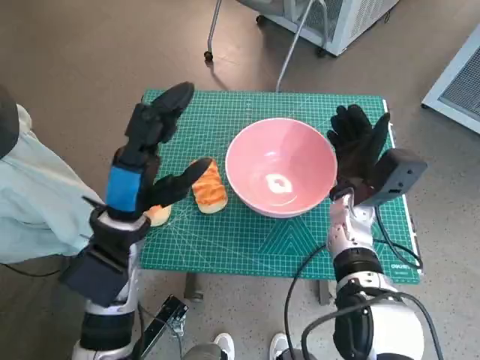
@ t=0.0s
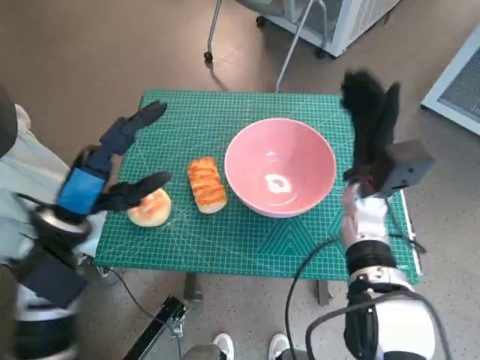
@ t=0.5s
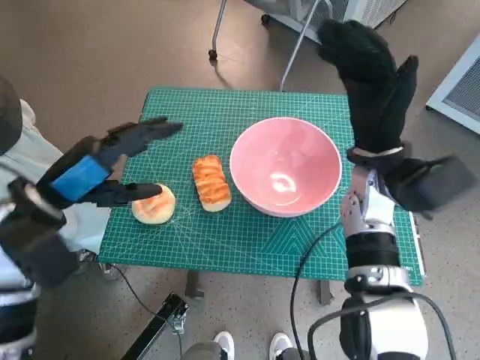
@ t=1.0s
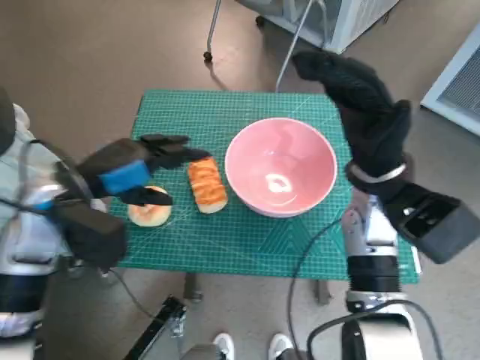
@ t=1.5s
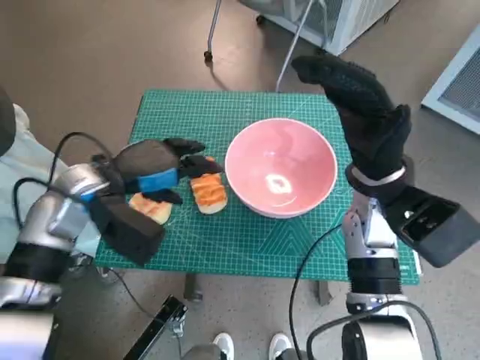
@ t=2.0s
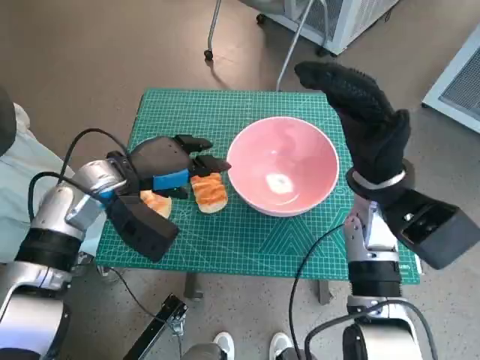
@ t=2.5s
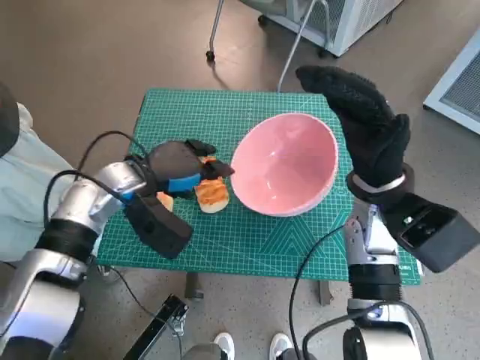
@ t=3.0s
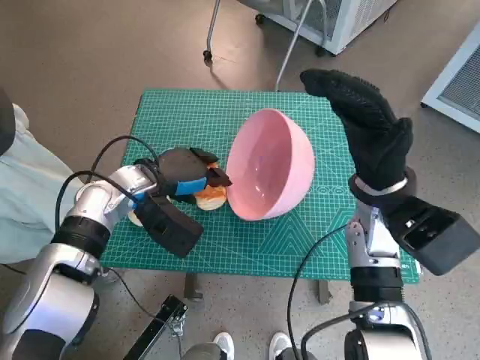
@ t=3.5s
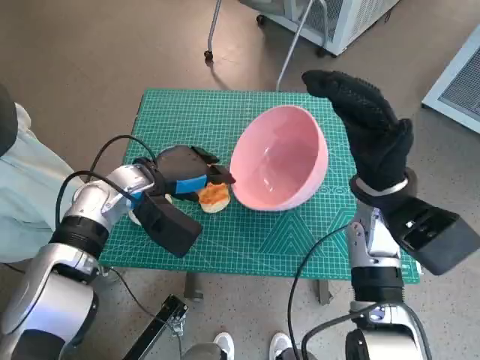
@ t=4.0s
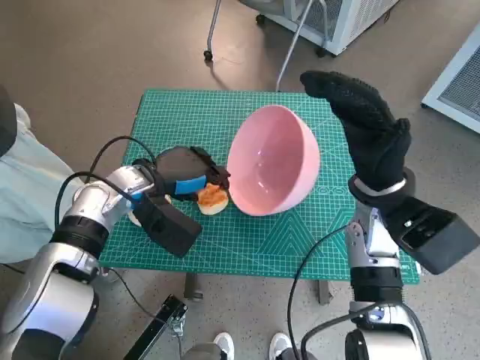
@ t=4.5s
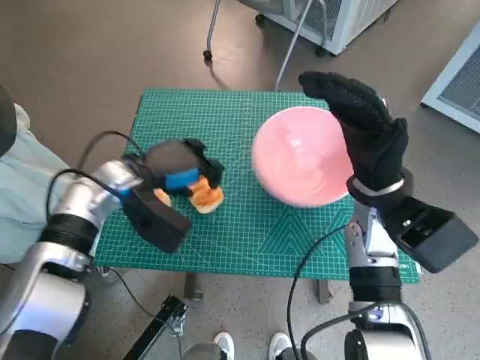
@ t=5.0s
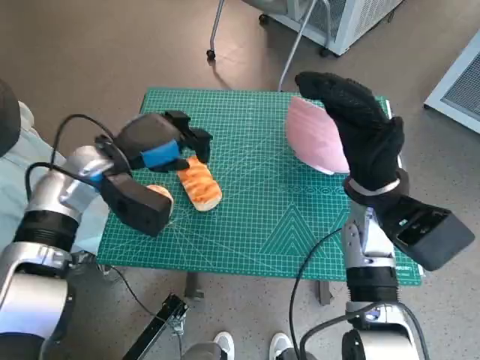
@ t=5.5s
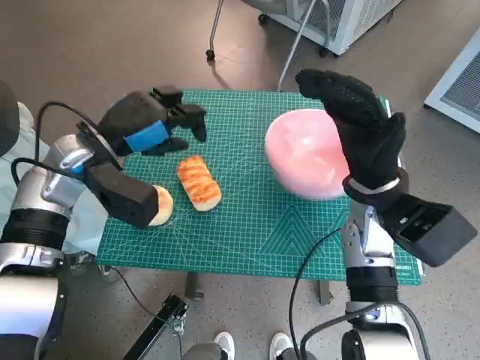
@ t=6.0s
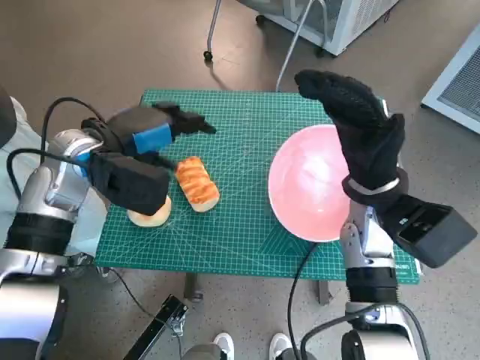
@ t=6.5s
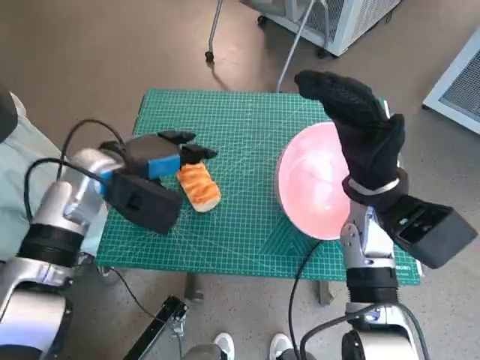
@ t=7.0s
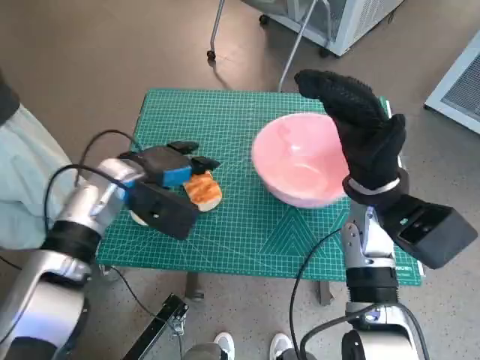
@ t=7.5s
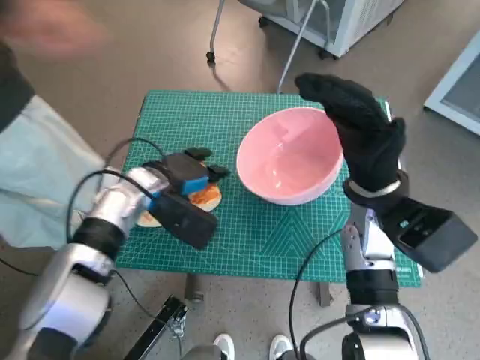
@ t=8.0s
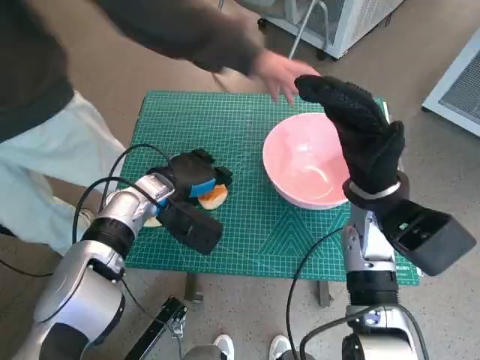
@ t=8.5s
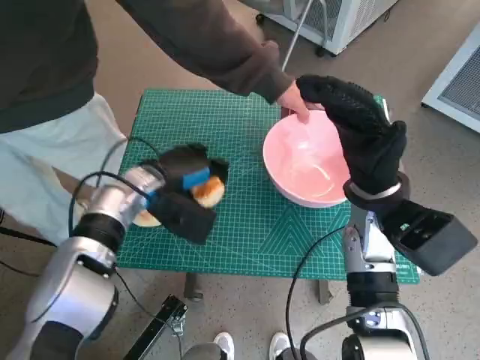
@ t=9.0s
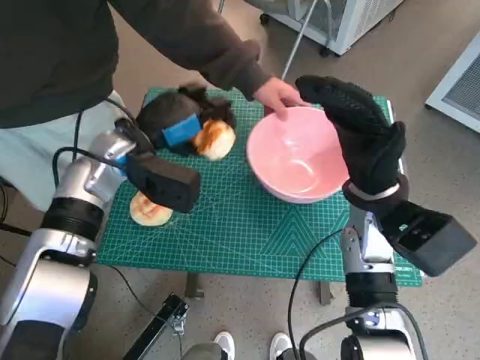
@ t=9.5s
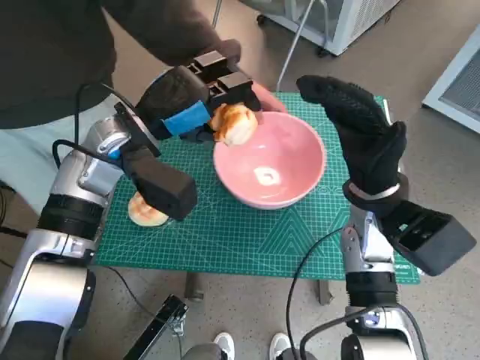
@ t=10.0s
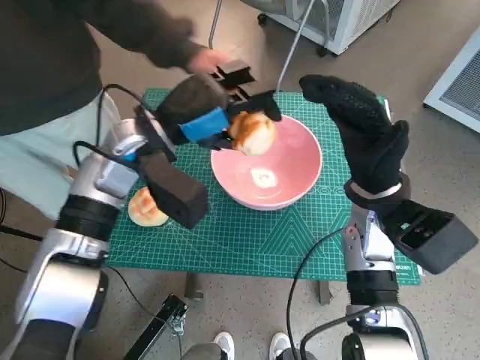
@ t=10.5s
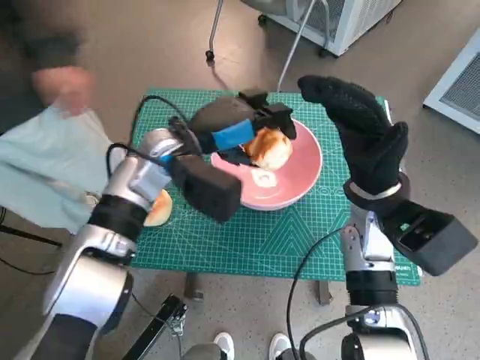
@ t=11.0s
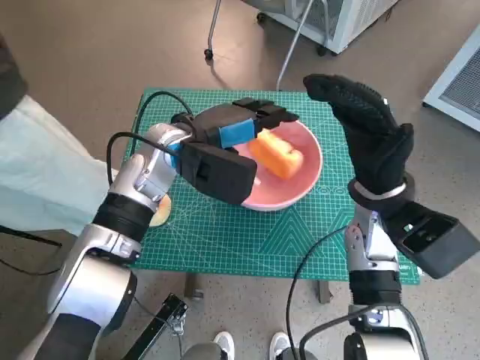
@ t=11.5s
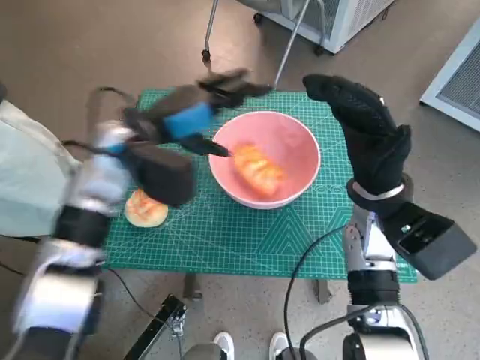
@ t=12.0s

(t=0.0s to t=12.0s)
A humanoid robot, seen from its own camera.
Task of the whole recording: Push the bowl to the center of the table and put the bread into the bowl.
Step, t=0.5s - t=8.5s: Grasp the long bread with left hand.
Step, t=9.0s - t=11.5s: Place the long bread in pink bowl with left hand.
t=0.0s - t=2.0s: The left hand goes some 5 cm forward, while the right hand goes approximately 10 cm upward.
t=2.0s - t=4.0s: The left hand moves about 5 cm.
t=4.0s - t=6.0s: The left hand goes some 5 cm upward.
t=6.0s - t=8.0s: The left hand shifts some 10 cm downward.
t=8.0s - t=10.0s: The left hand shifts about 10 cm upward.

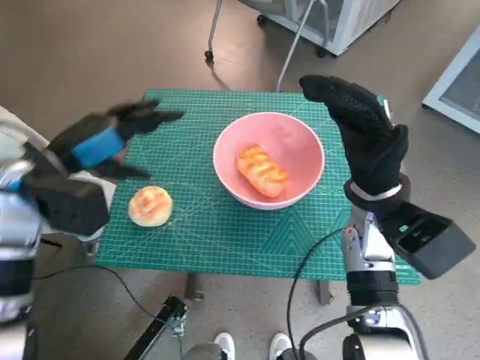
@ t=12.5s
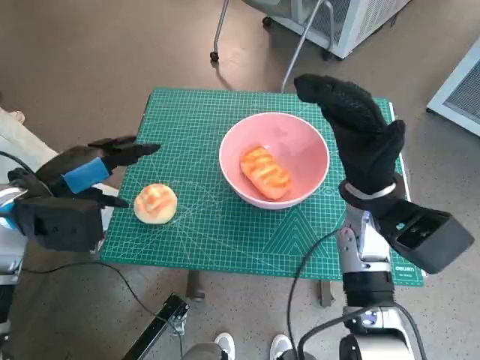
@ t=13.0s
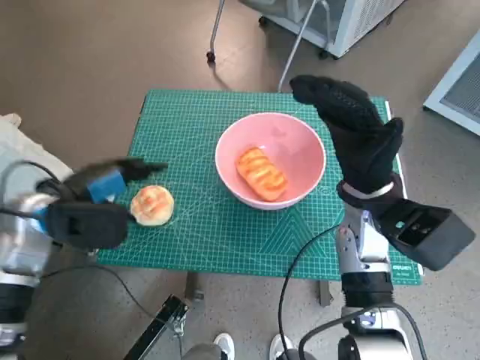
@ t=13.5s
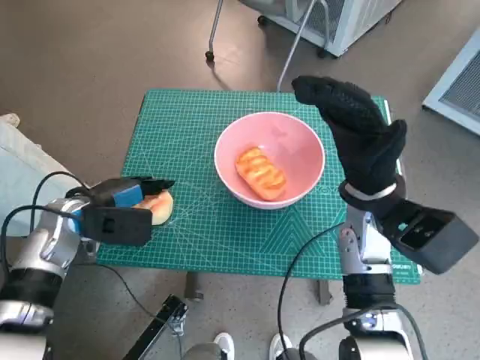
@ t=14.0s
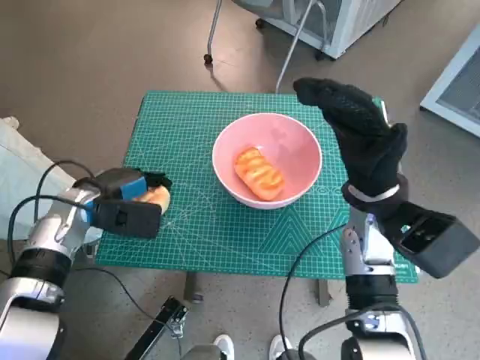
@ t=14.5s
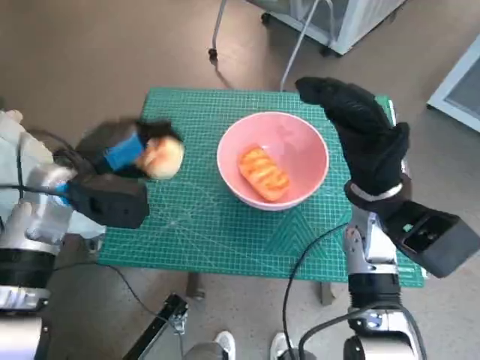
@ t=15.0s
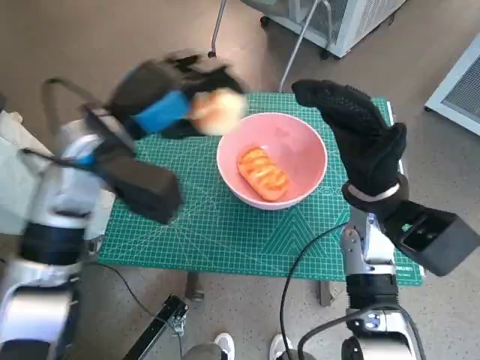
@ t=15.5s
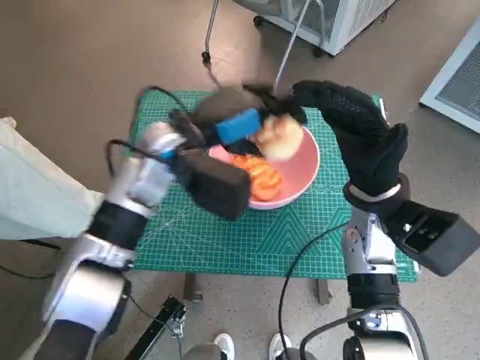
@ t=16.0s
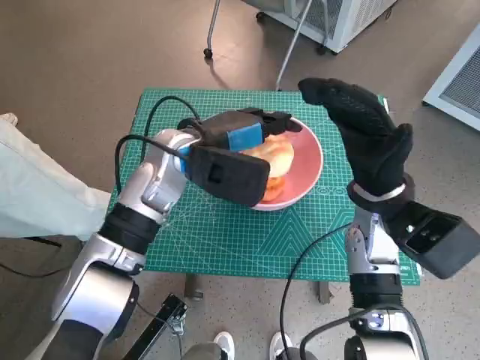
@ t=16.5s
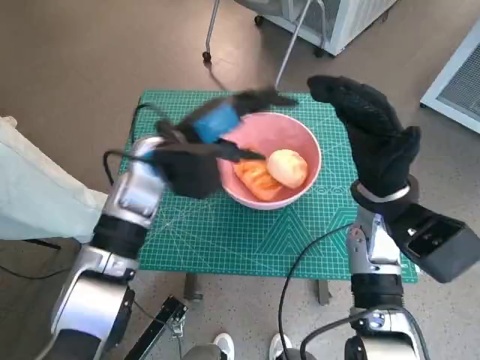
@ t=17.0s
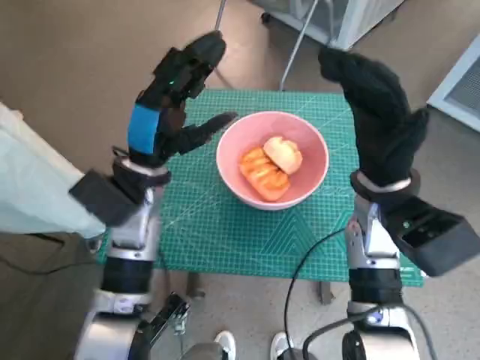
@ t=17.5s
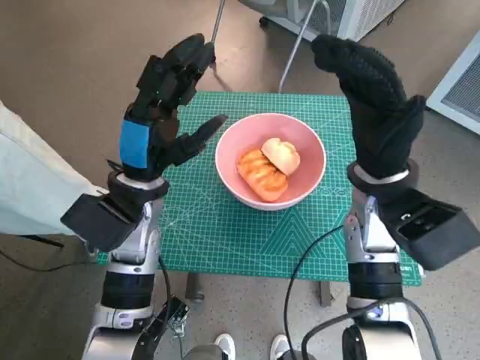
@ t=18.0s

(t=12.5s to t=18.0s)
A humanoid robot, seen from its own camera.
Task of the whole recording: Push the bowl to the center of the table and put the bread into the bowl.
Step, t=12.5s - t=14.5s: Grasp the round bread with left hand.
Step, t=15.0s - t=16.5s: Place the round bread in pink bowl with left hand.
t=12.5s - t=14.5s: The left hand goes approximately 10 cm downward.
t=14.5s - t=16.0s: The left hand is displaced to the right and upward by about 20 cm.
t=16.0s - t=18.0s: The left hand changes place by approximately 10 cm.
